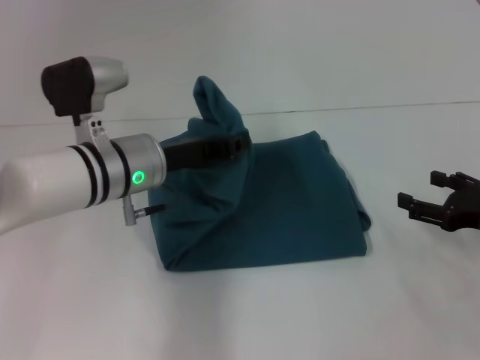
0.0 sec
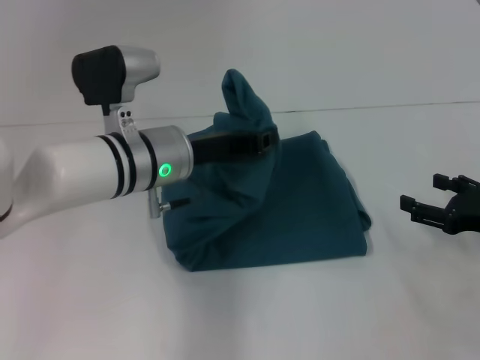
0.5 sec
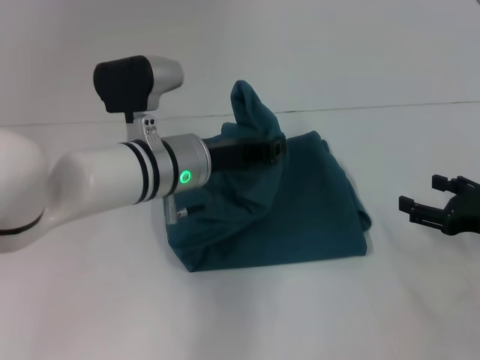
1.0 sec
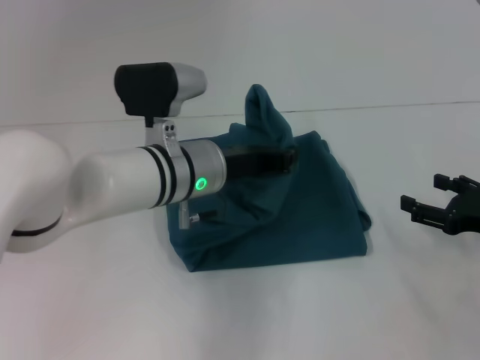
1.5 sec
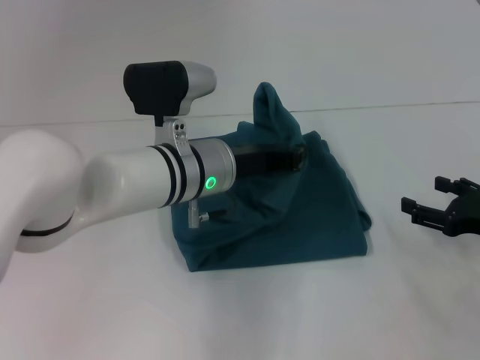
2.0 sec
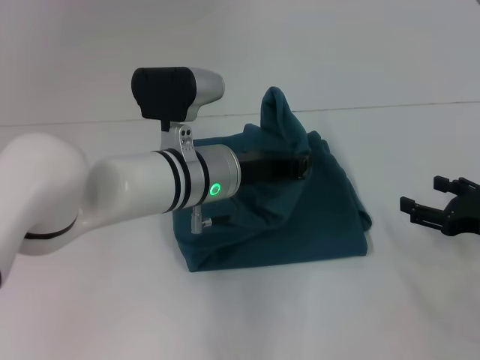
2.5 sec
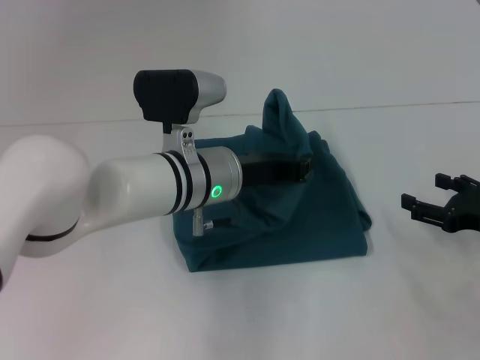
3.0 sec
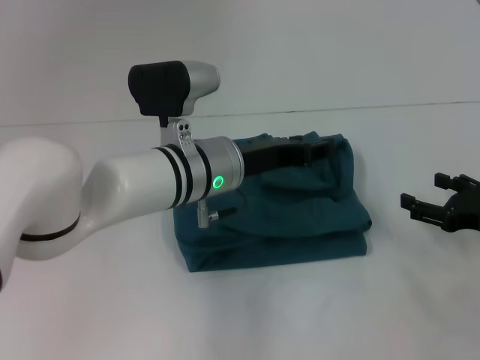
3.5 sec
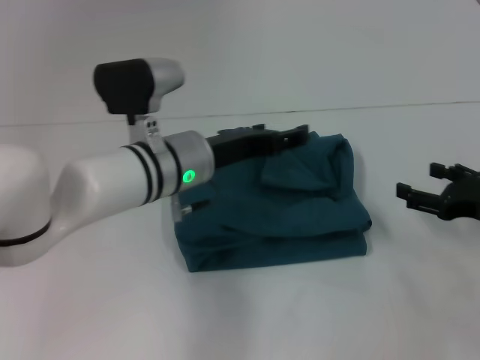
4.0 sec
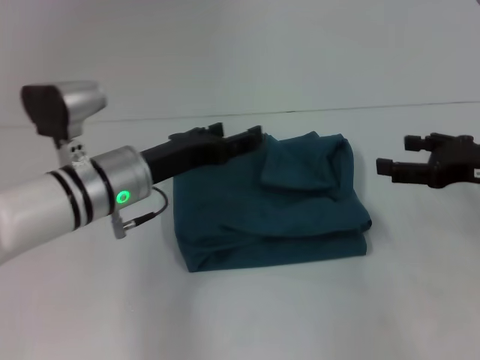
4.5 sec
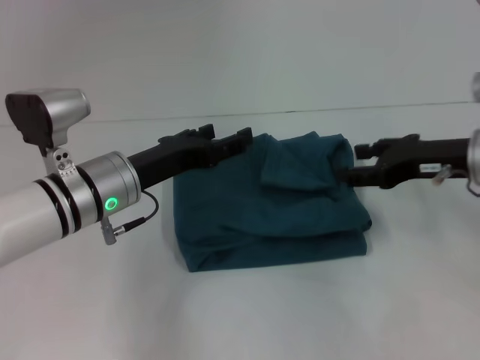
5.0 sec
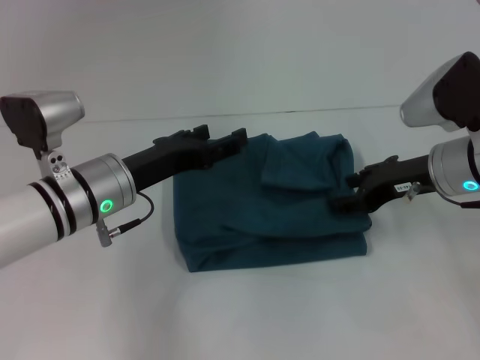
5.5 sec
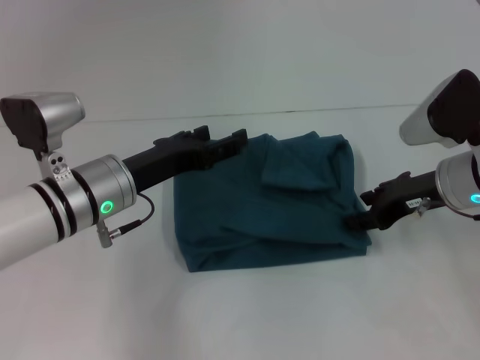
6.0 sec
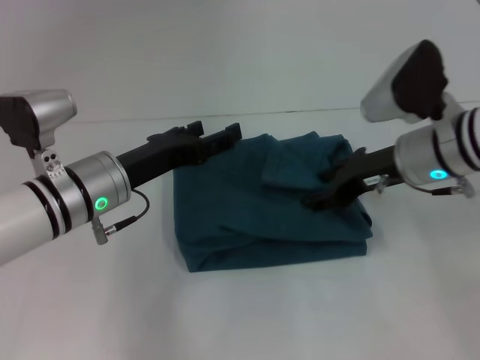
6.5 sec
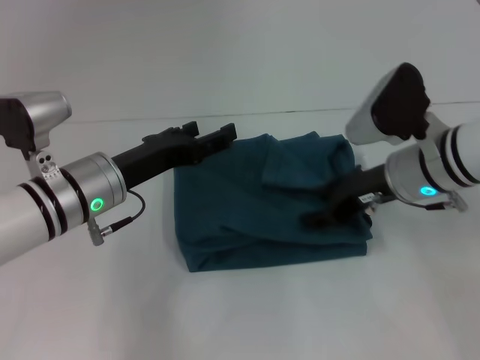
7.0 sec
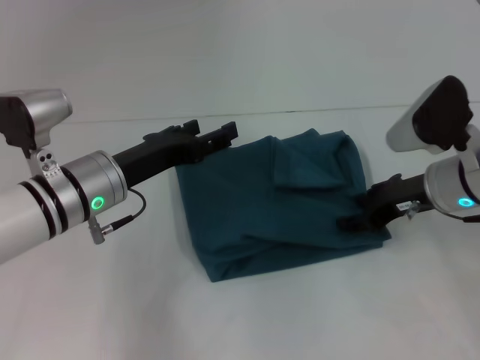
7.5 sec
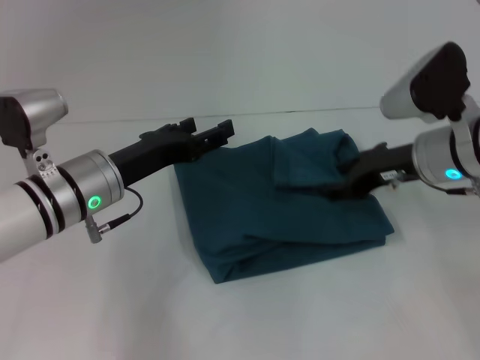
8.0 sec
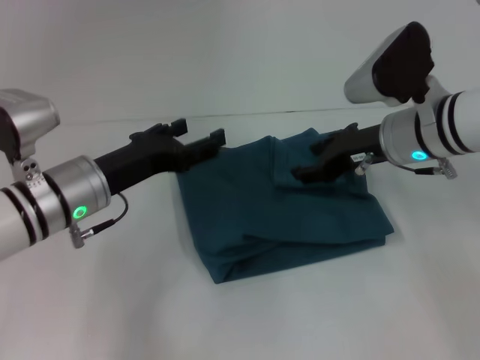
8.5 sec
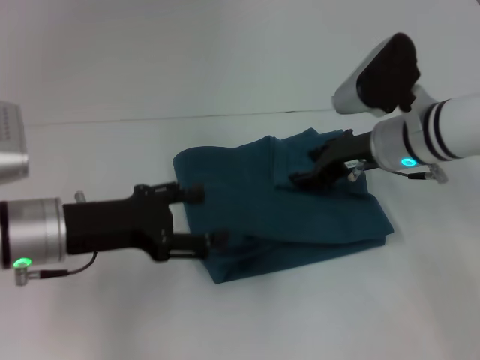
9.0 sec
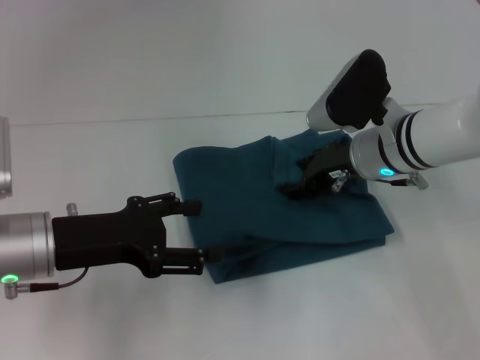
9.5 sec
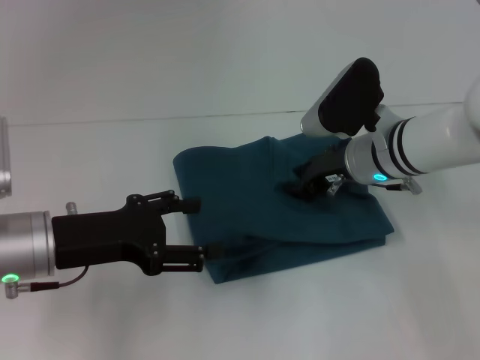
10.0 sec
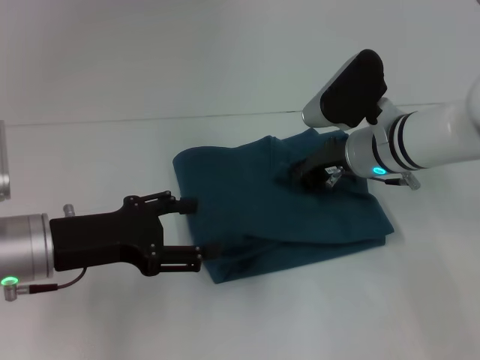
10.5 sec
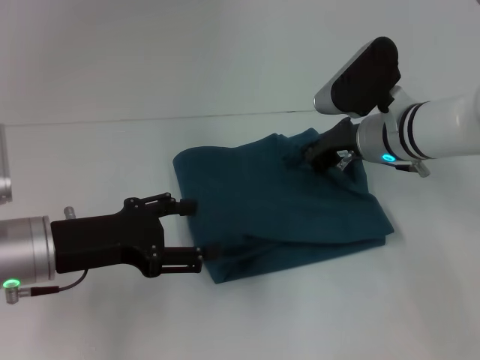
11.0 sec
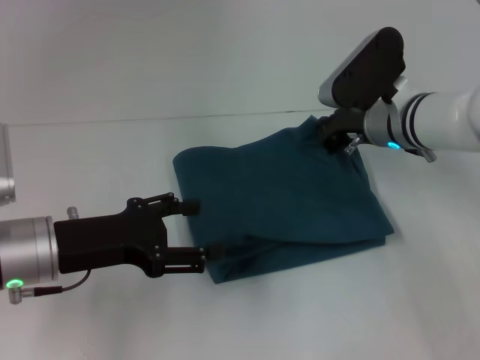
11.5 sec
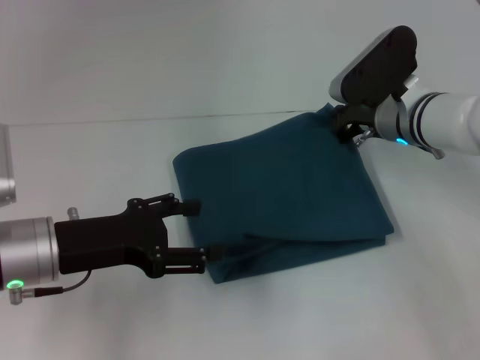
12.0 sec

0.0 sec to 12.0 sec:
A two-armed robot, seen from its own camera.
Step, 0.0 sec to 3.5 sec: Fold the clothes to the left.
0.0 sec to 2.0 sec: The left gripper is displaced to the right by some 5 cm.
2.0 sec to 4.0 sec: The left gripper opens up.
4.0 sec to 6.0 sec: The left gripper moves to the left, some 10 cm, while the right gripper travels to the left and forward by some 10 cm.
6.0 sec to 8.0 sec: The grippers move only a little.
8.0 sec to 10.0 sec: The left gripper goes some 10 cm backward and to the left, while the right gripper goes roughly 5 cm to the left.
10.0 sec to 12.0 sec: The right gripper closes.

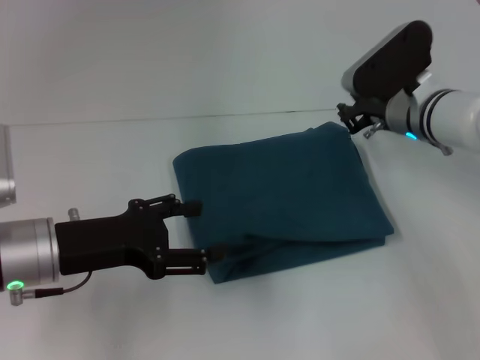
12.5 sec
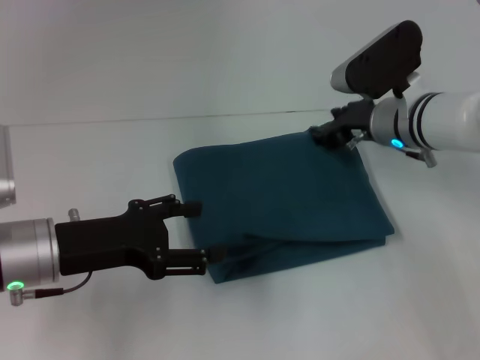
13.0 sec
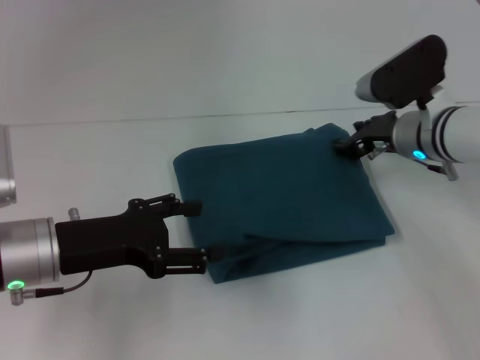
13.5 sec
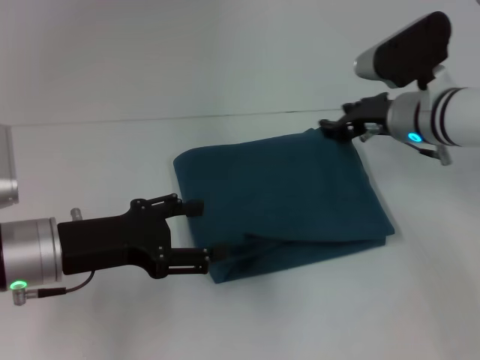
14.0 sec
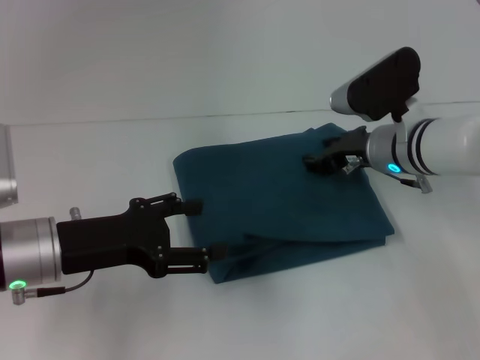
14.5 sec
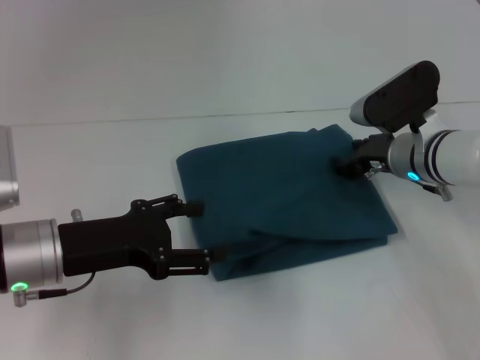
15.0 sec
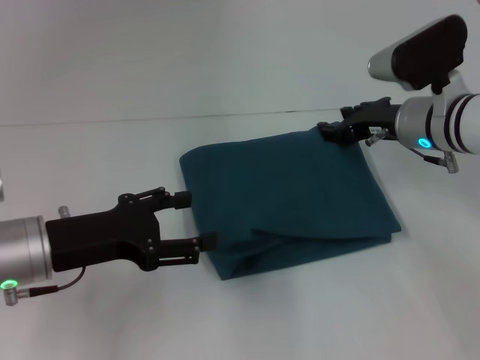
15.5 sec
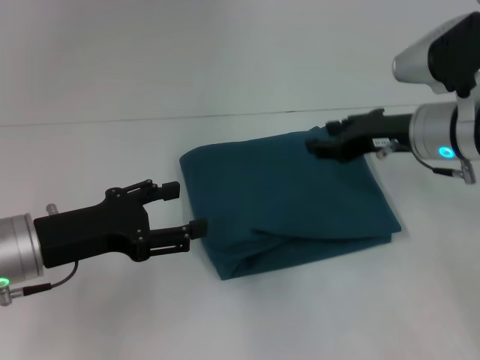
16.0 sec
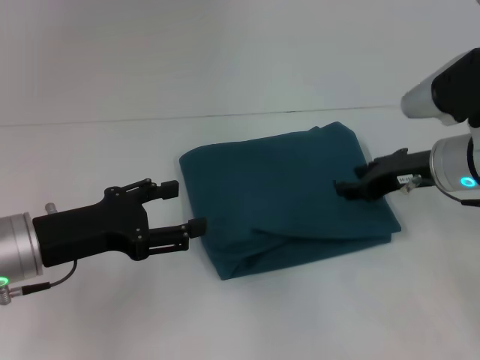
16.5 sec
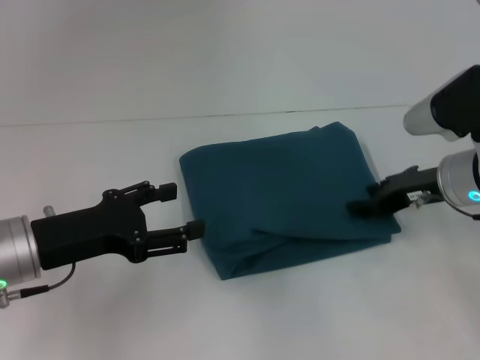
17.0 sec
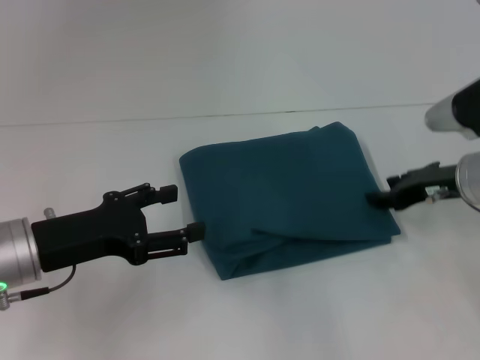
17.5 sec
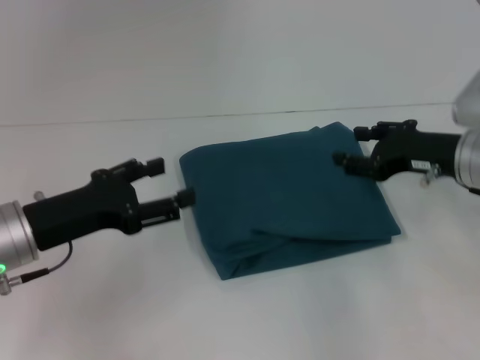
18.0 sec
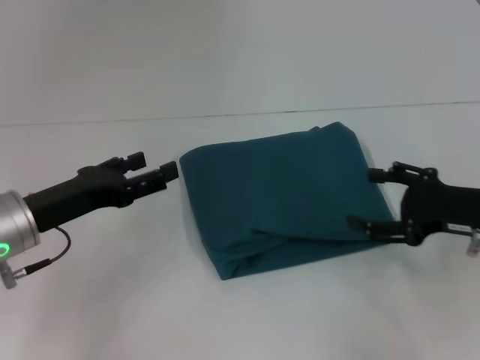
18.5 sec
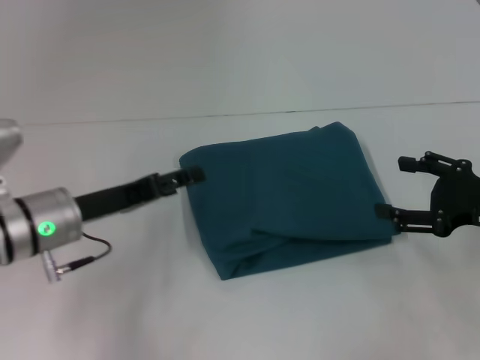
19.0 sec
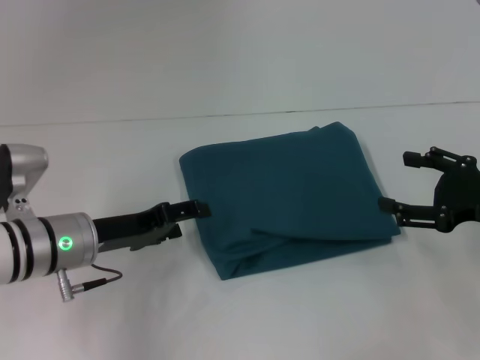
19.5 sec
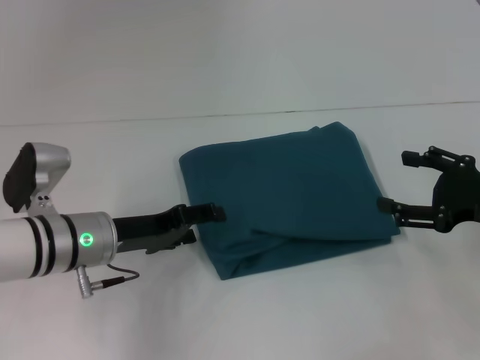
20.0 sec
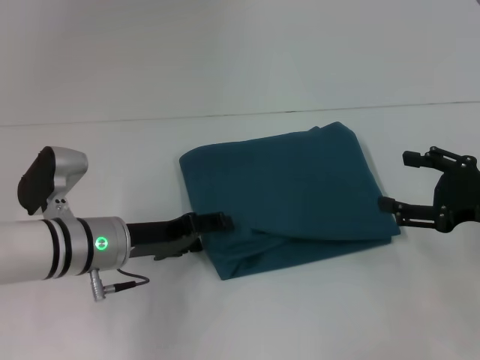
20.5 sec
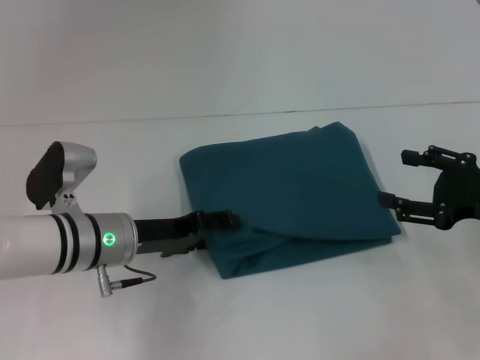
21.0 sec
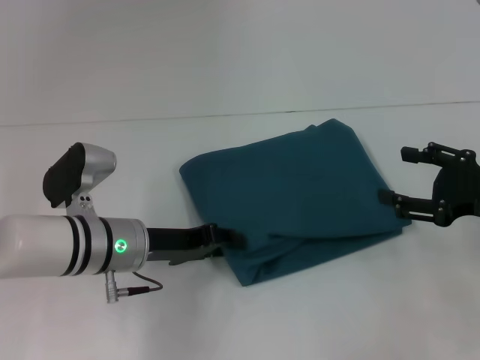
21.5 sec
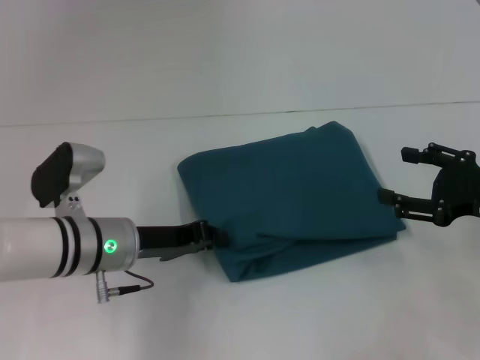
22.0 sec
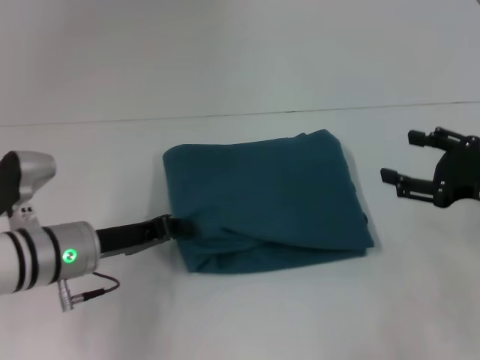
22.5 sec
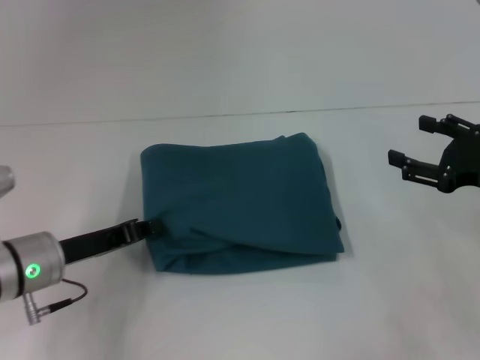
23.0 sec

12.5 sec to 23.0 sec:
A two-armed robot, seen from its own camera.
12.5 sec to 14.5 sec: The right gripper opens.
14.5 sec to 16.5 sec: The right gripper travels to the right by roughly 5 cm.
16.5 sec to 19.0 sec: The left gripper moves some 5 cm, while the right gripper moves backward and to the right, roughly 10 cm, and opens its fingers.
19.0 sec to 21.0 sec: The left gripper ends up roughly 5 cm from where it was.
21.0 sec to 23.0 sec: The left gripper goes about 5 cm to the left, and closes its fingers.

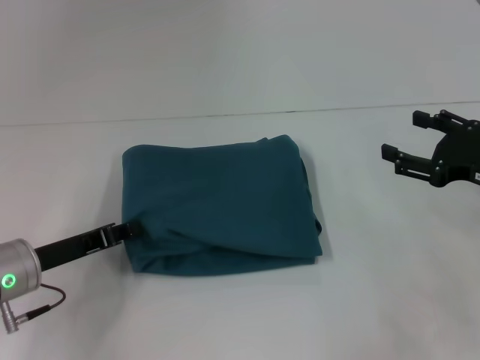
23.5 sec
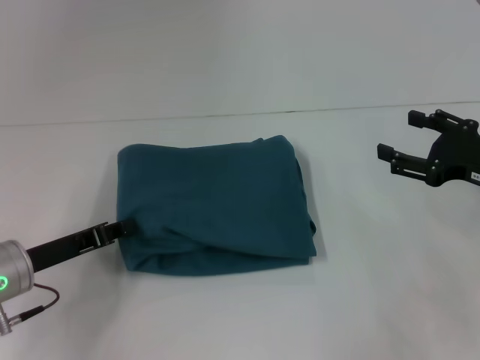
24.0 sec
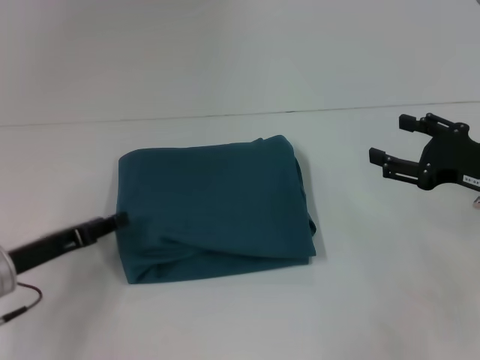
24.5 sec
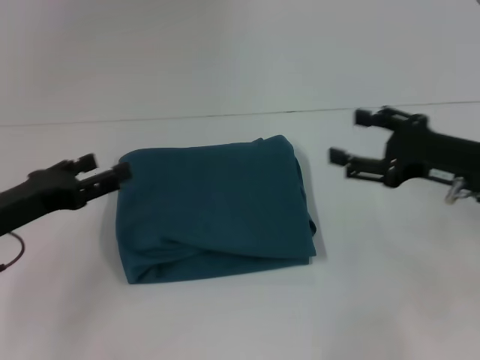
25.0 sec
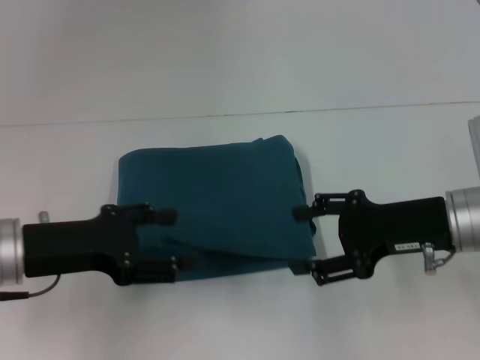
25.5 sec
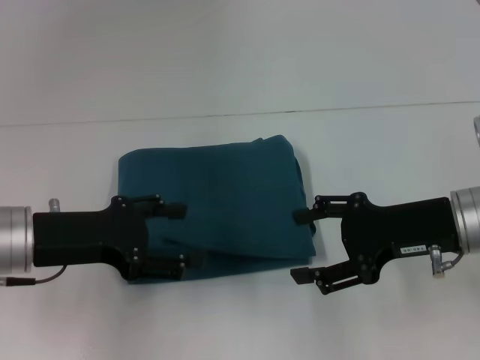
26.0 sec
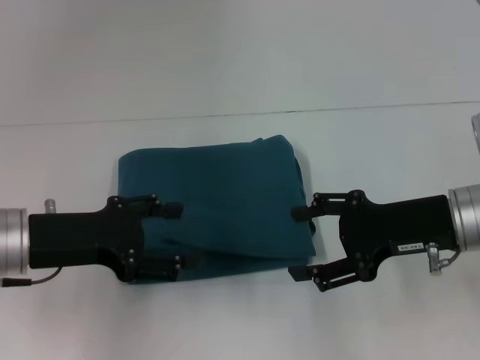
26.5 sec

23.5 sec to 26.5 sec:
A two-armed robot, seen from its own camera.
23.5 sec to 25.0 sec: The left gripper changes place by roughly 5 cm, and opens.
25.0 sec to 26.5 sec: The left gripper shifts by approximately 5 cm.
